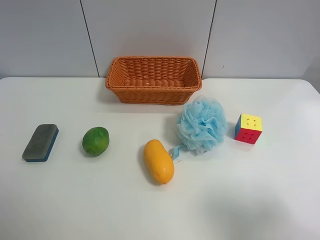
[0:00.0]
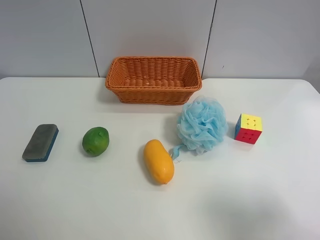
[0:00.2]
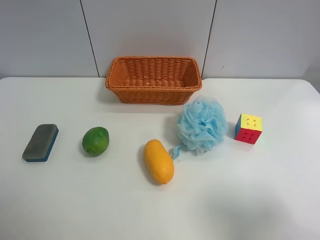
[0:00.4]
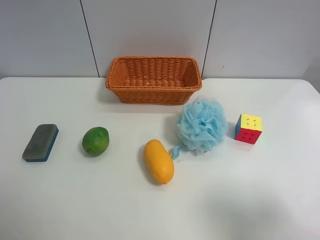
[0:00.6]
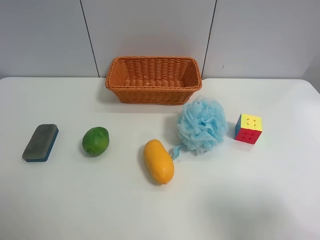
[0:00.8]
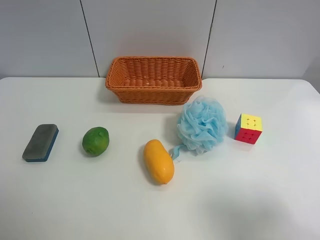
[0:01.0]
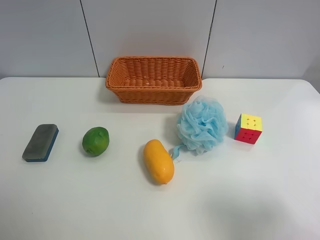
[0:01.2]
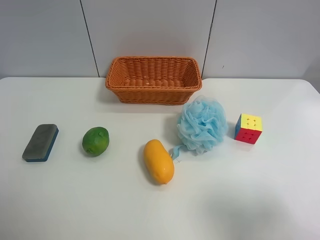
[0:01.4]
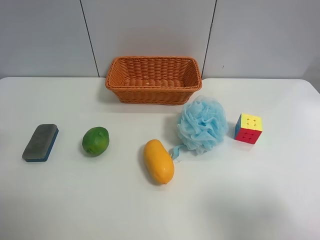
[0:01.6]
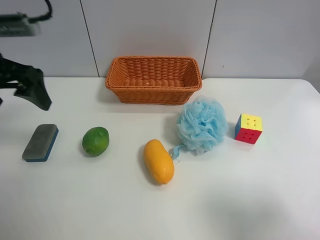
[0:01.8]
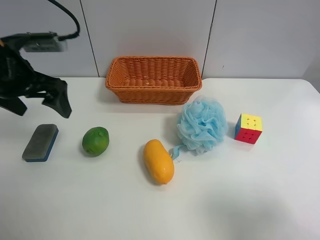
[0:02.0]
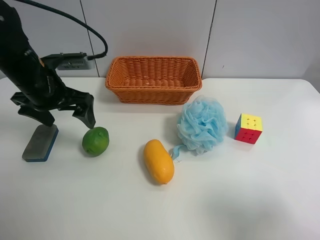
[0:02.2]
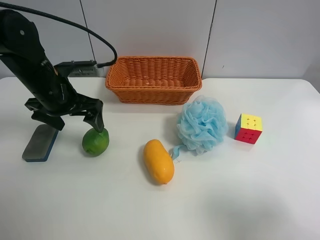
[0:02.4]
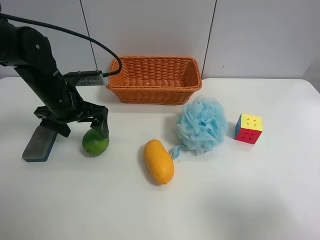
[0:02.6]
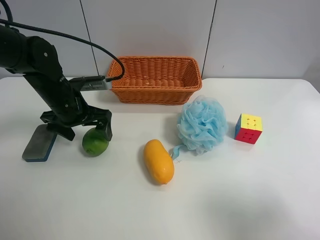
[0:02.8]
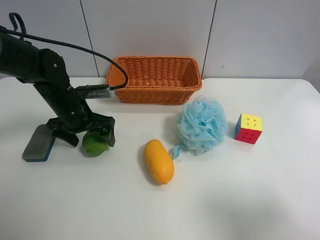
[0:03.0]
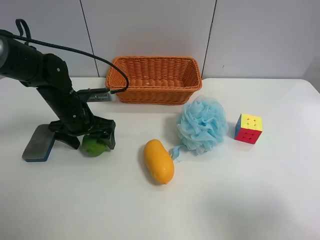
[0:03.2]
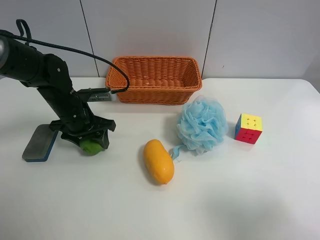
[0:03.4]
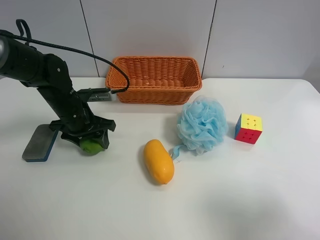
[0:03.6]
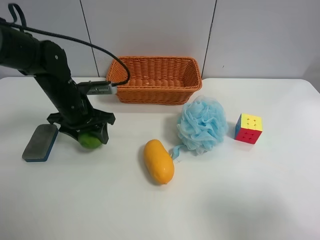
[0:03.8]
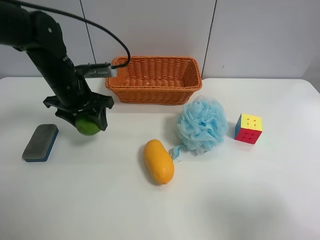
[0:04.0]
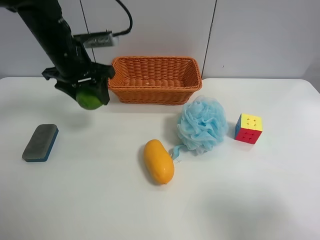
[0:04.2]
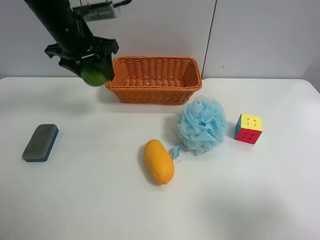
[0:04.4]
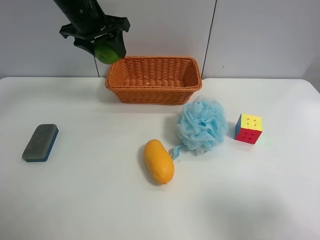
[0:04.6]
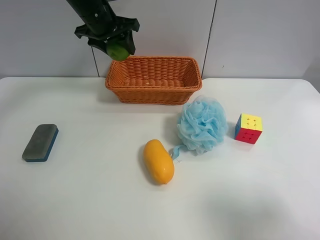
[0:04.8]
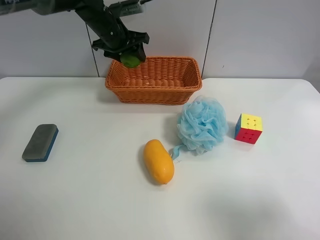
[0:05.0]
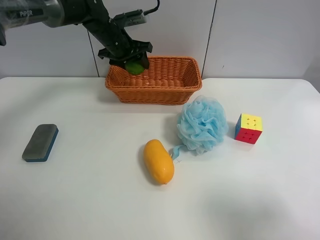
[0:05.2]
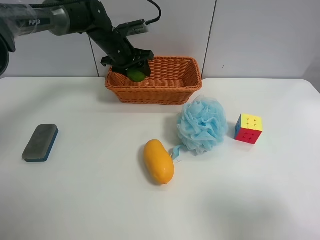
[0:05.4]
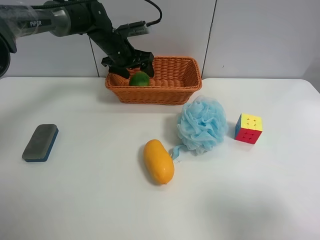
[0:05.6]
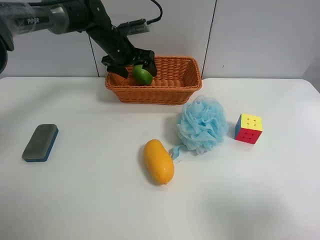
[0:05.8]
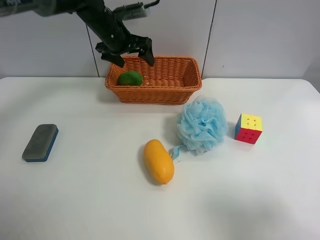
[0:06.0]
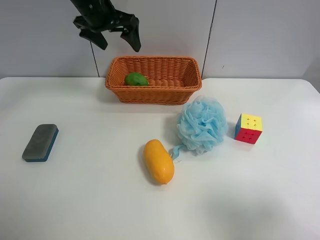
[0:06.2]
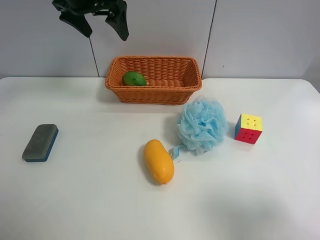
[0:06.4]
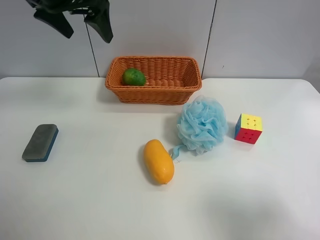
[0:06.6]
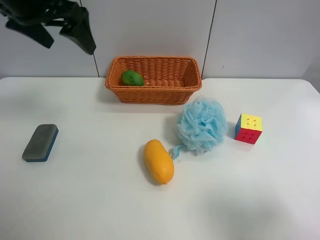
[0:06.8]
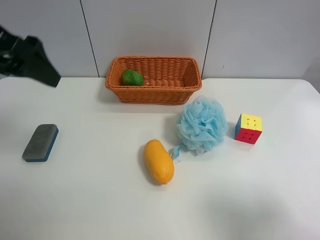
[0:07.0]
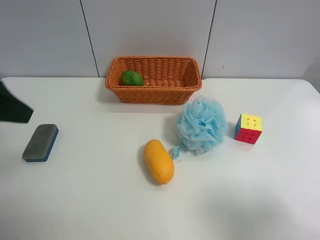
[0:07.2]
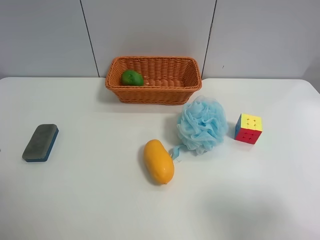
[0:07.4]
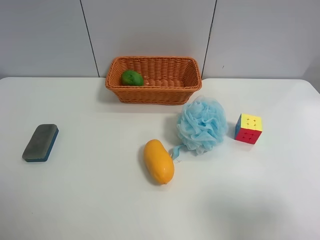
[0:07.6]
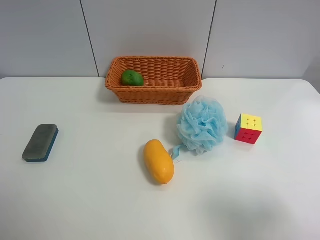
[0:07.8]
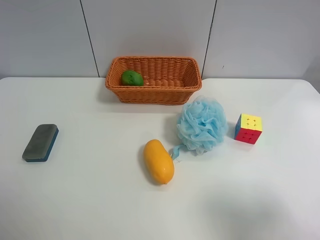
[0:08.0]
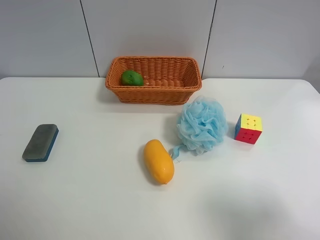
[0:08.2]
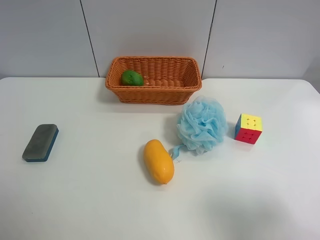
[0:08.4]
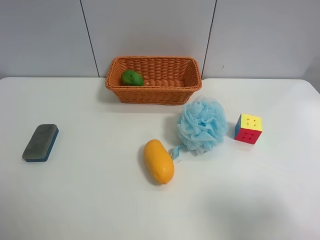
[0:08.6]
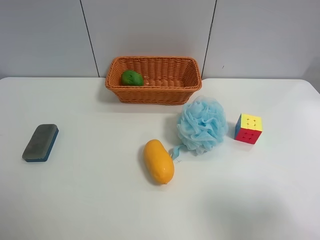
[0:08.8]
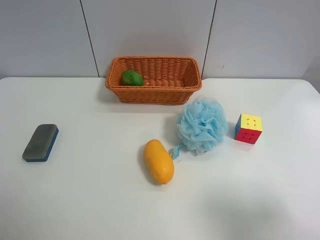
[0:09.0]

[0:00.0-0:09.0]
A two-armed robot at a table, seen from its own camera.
Task of the whole recording: use the left gripper to grab items from the table and place them in the basket.
Step, 0:00.0 to 0:03.6: Grasp the apple rubber puff with the left gripper.
Step, 0:03.8 to 0:05.8: Place the apple rubber puff into the basket with the left gripper.
0:01.6 to 0:03.0: The left gripper shifts some 30 cm downward, forward and to the right.
0:03.0 to 0:04.4: The left gripper goes about 15 cm upward, and closes.
0:04.4 to 0:06.0: The left gripper heads forward, covering approximately 10 cm, and opens up.
0:06.0 to 0:07.6: The left gripper heads backward, covering roughly 40 cm.
